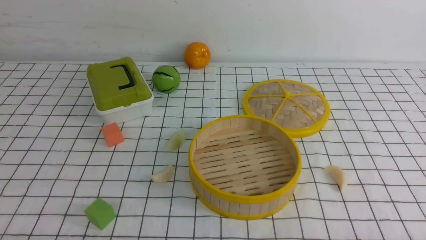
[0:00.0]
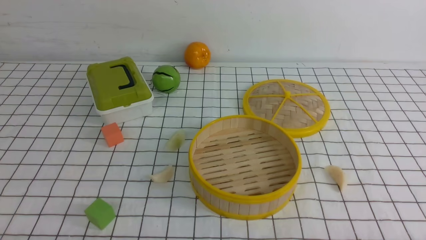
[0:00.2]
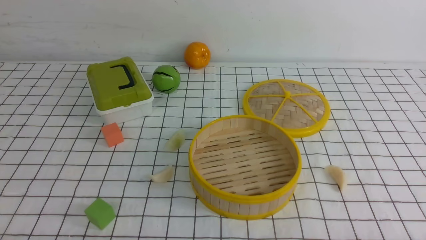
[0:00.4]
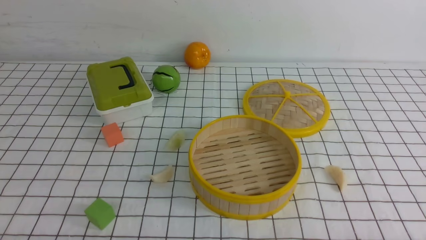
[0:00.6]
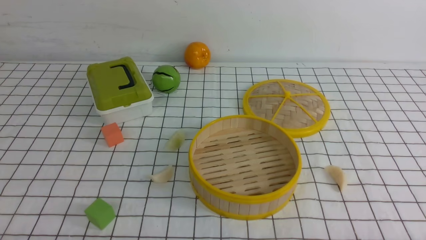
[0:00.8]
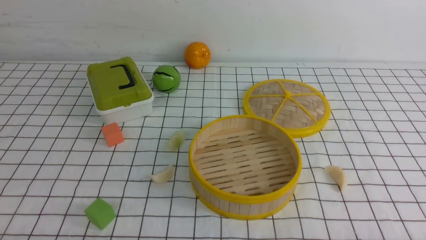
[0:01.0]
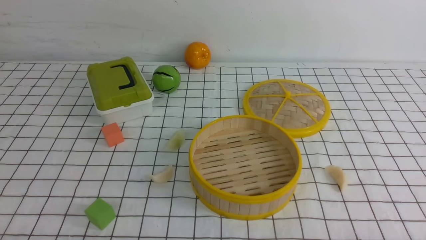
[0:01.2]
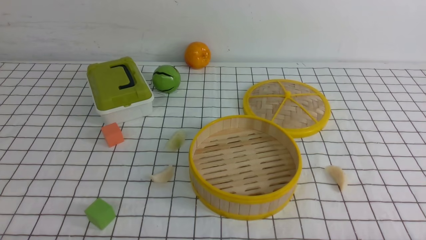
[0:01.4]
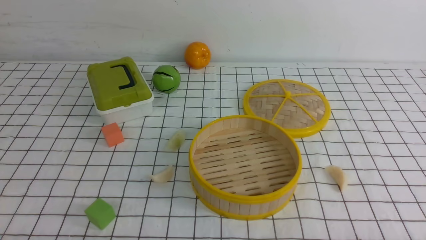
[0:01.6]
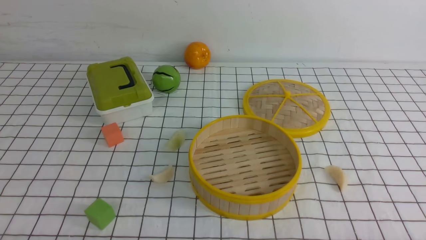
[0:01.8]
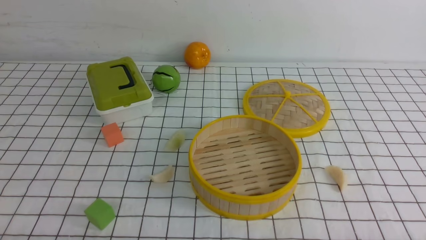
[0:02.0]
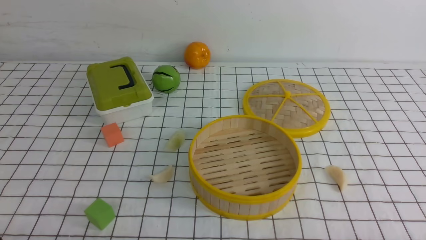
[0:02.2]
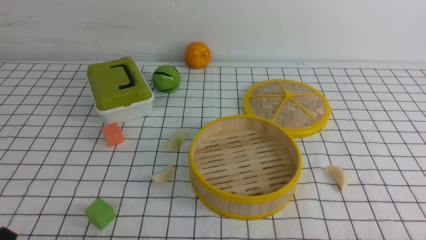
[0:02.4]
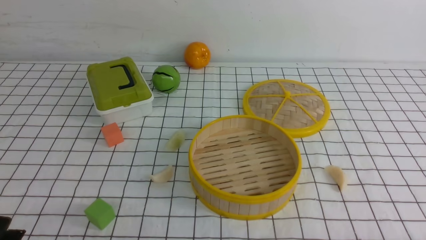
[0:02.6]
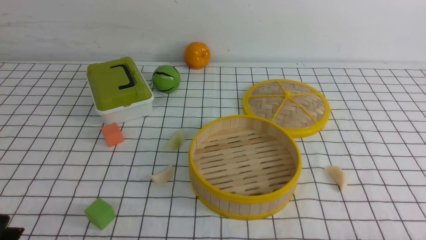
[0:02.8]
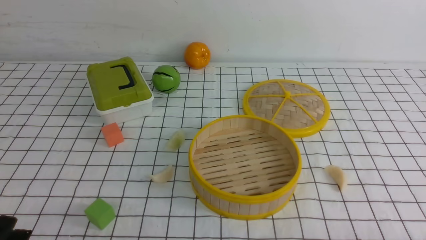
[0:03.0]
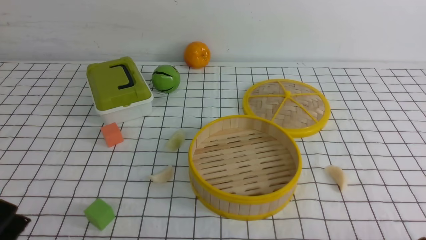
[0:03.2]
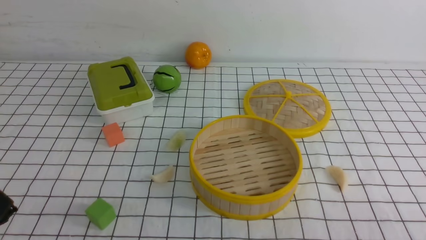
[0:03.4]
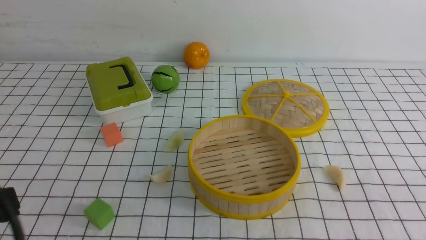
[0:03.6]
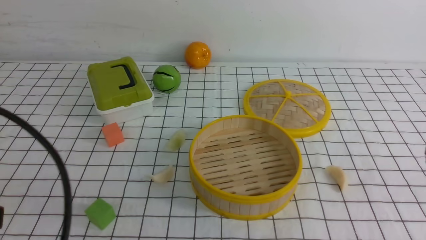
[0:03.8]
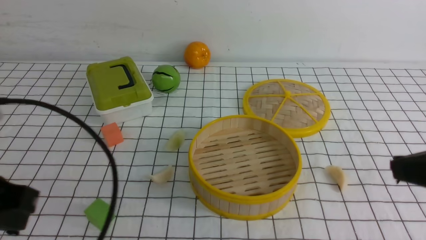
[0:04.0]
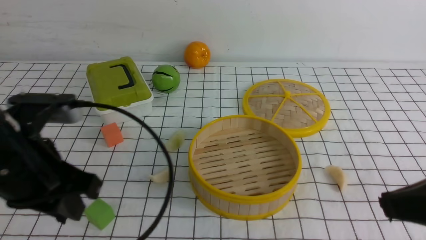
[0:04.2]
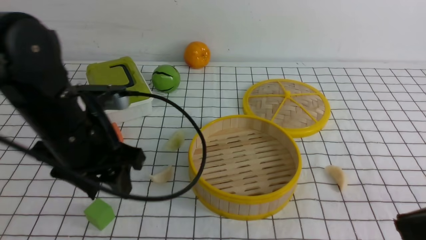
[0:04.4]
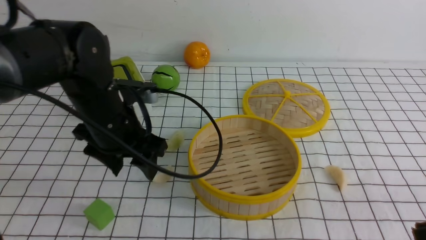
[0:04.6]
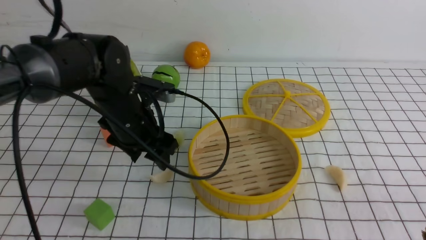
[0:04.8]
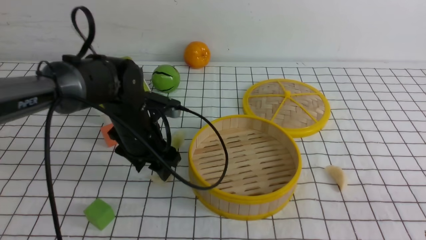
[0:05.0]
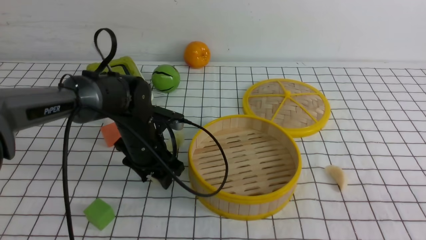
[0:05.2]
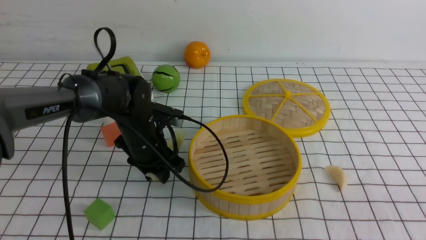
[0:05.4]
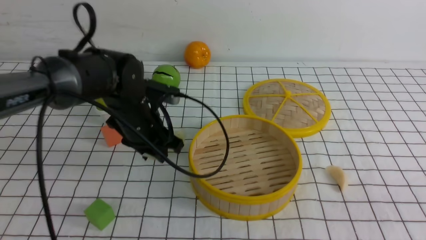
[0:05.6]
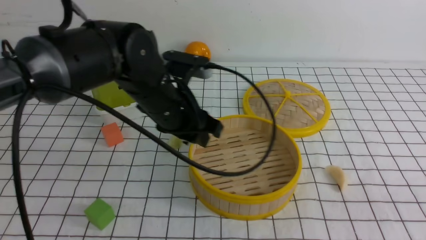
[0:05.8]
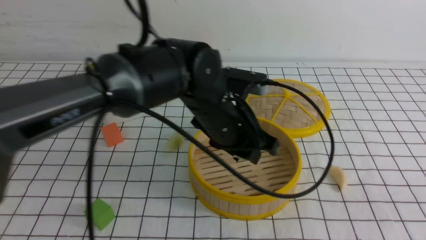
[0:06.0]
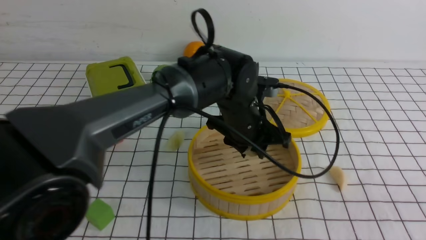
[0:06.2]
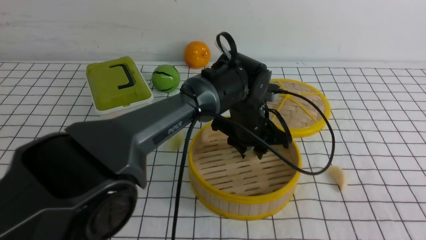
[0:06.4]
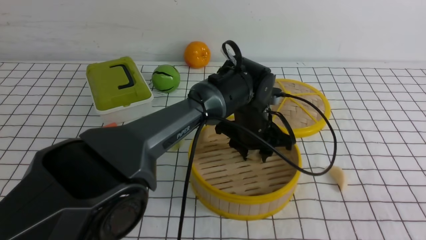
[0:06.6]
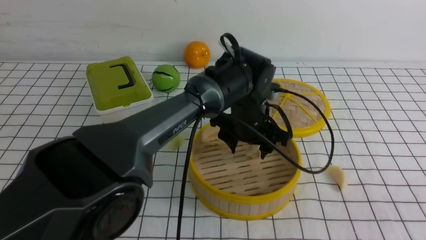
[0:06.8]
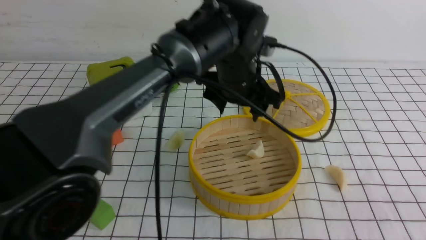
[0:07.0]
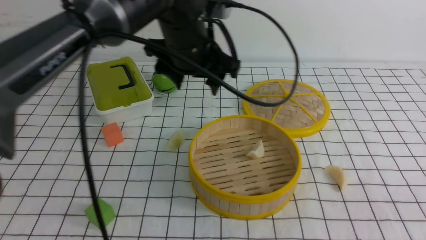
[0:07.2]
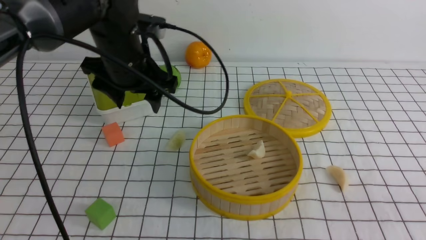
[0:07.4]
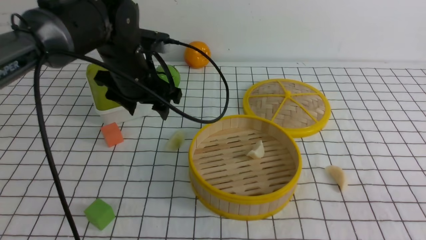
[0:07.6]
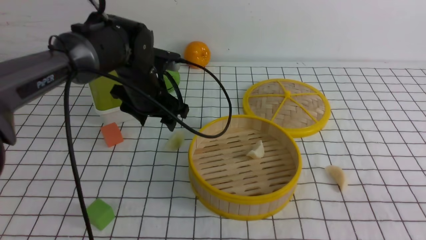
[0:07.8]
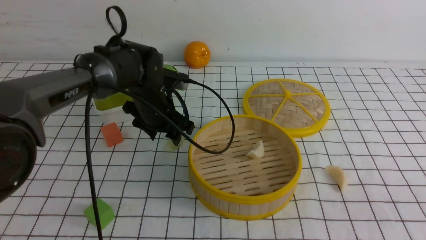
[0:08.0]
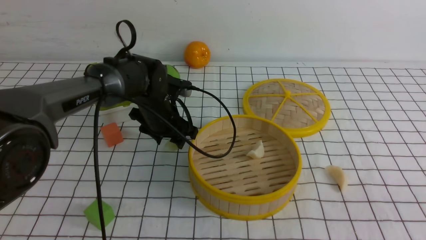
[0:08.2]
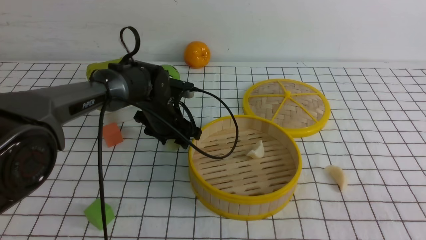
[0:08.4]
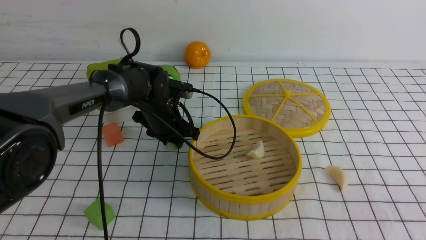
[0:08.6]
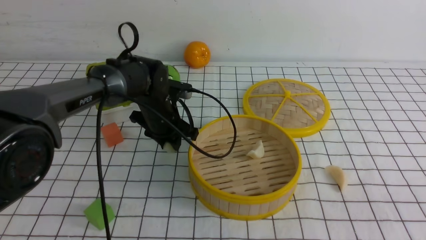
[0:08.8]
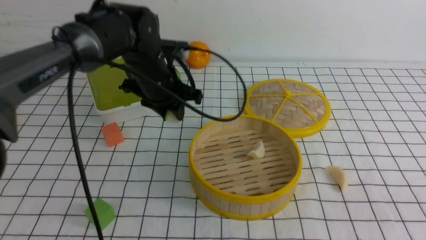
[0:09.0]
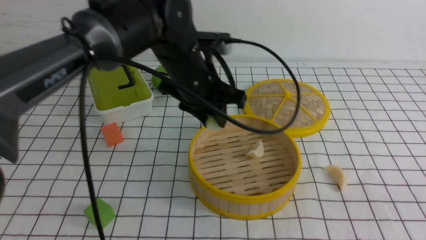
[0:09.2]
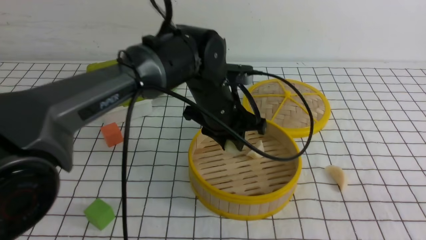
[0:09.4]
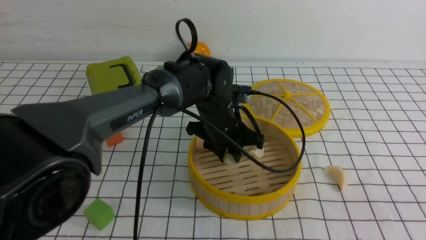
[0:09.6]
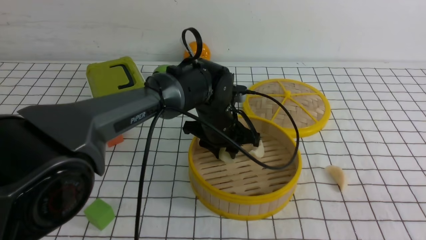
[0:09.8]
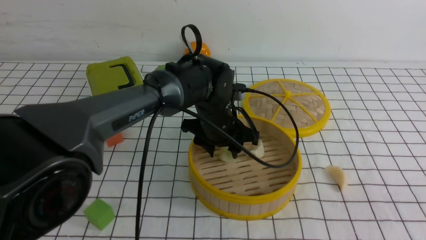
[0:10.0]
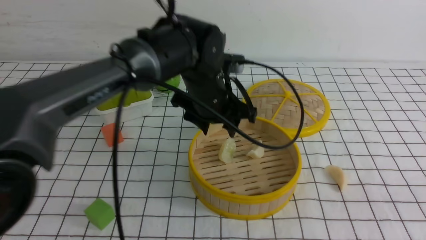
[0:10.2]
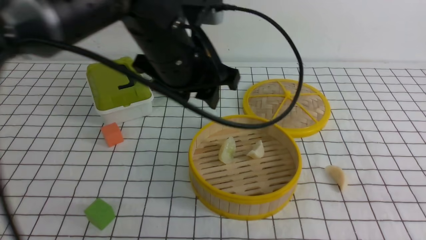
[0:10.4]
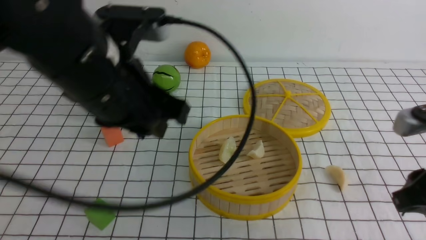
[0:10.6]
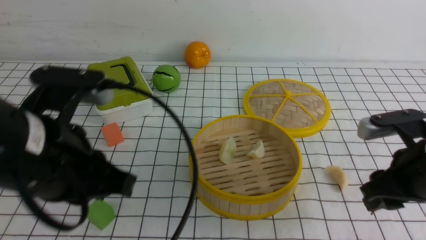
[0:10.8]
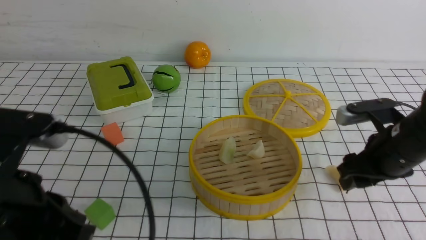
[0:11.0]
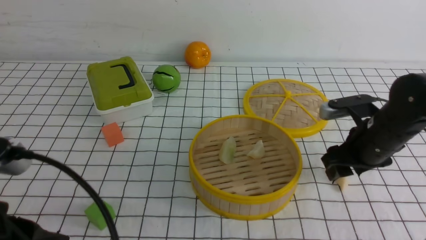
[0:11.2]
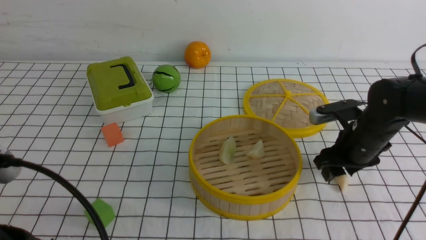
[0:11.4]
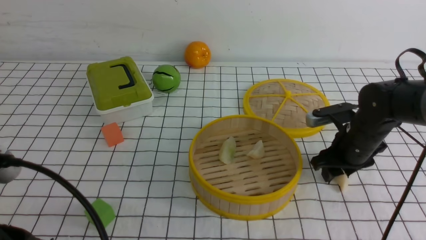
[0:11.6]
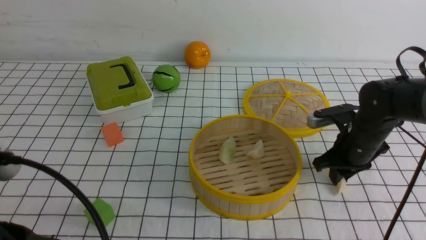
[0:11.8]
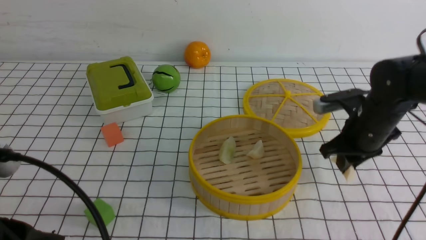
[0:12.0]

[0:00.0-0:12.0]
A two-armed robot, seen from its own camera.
Task of the whole recording: put the dumplings into the steamer on the table with the white tablecloth.
Step, 0:00.0 to 0:05.8: use the left arm to grab a dumpling.
Step, 0:06.0 to 0:07.2: use the left arm to put the dumpling into the steamer.
Step, 0:07.4 to 0:08.8: use the left arm to grab a dumpling.
Step, 0:09.0 to 0:10.0: use the left arm to put the dumpling into the steamer.
0:00.0 to 0:01.6: Both grippers stay put.
0:03.0 to 0:04.4: The right gripper is displaced upward by approximately 15 cm, and closes its fingers; the left gripper heads forward and to the right, covering some 25 cm, and closes, then opens again.
0:04.4 to 0:06.0: The left gripper is displaced to the right and forward by approximately 20 cm.
0:06.0 to 0:07.6: The left gripper shifts about 15 cm to the left and forward, and opens its fingers.
0:07.6 to 0:09.0: The left gripper is displaced to the right by some 5 cm, goes downward and returns, about 10 cm each way, and closes its fingers.
0:09.0 to 0:10.4: The left gripper travels backward and upward by about 15 cm; the right gripper travels forward by some 10 cm.
0:10.4 to 0:12.0: The left gripper travels backward and to the left by roughly 25 cm, and closes its fingers; the right gripper moves forward and downward, approximately 25 cm, and opens, then closes again.

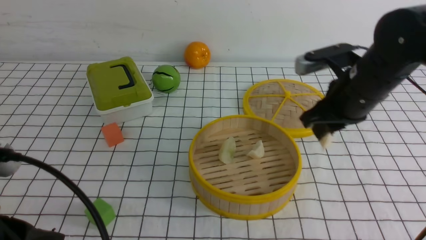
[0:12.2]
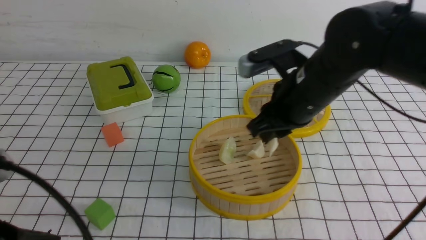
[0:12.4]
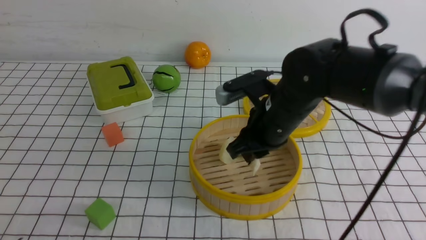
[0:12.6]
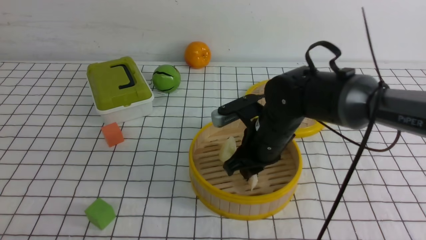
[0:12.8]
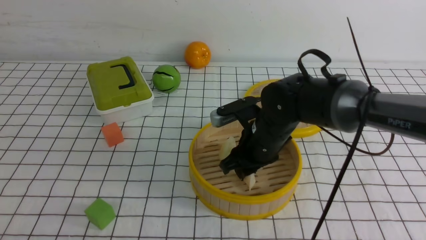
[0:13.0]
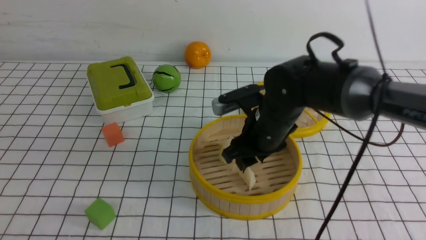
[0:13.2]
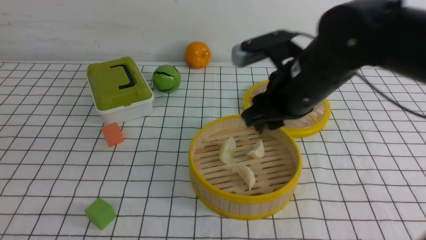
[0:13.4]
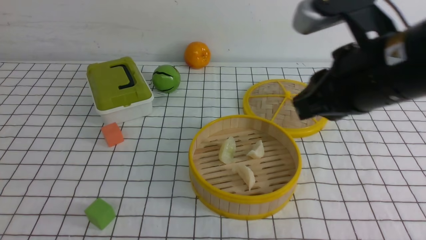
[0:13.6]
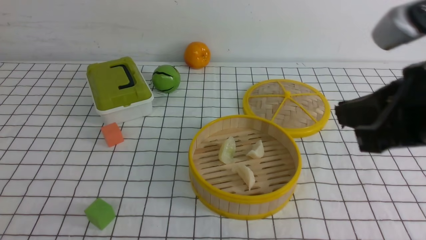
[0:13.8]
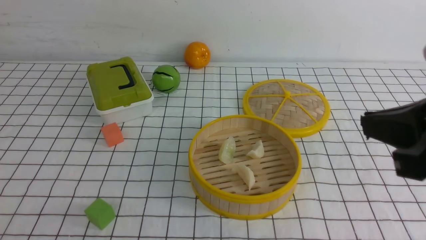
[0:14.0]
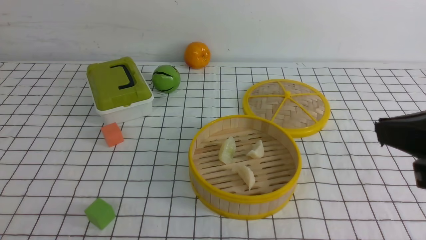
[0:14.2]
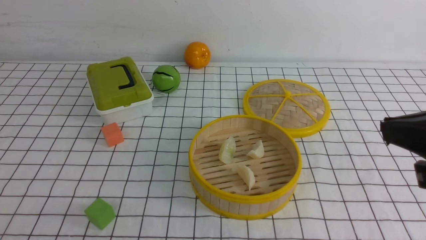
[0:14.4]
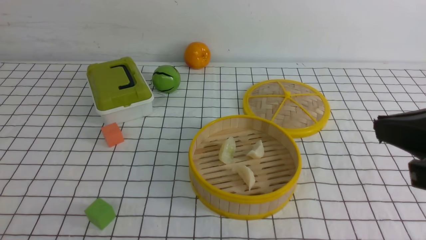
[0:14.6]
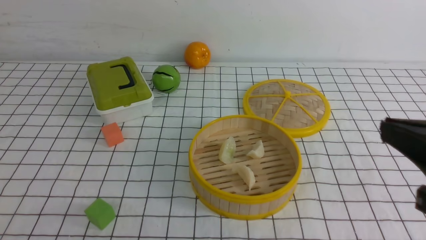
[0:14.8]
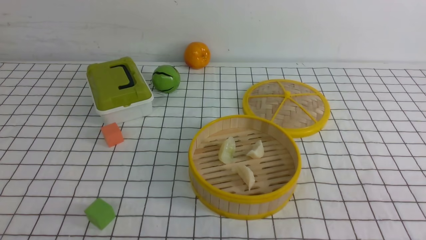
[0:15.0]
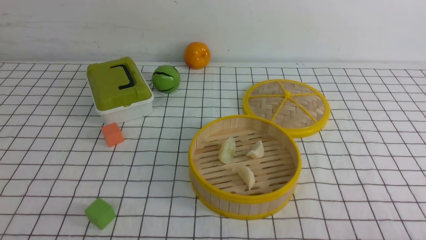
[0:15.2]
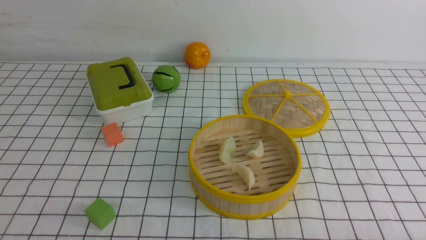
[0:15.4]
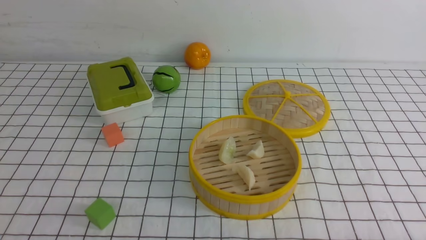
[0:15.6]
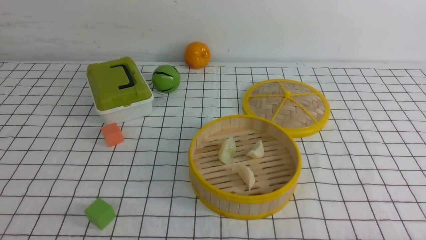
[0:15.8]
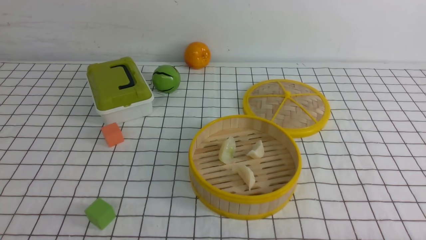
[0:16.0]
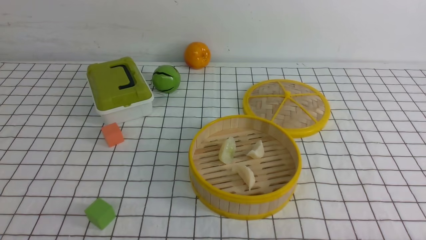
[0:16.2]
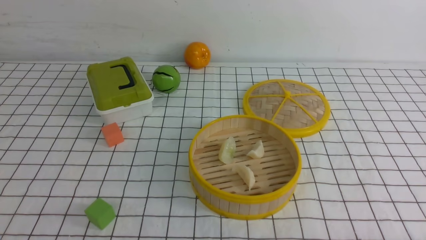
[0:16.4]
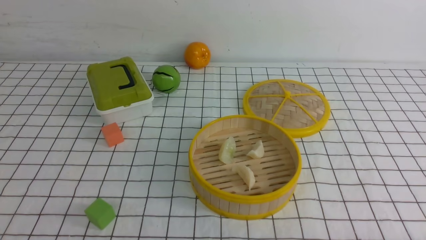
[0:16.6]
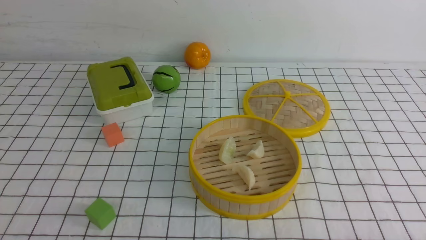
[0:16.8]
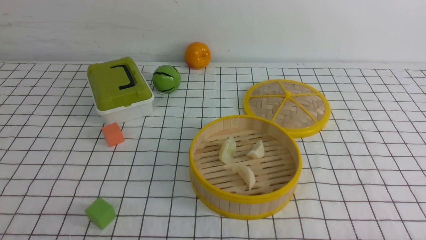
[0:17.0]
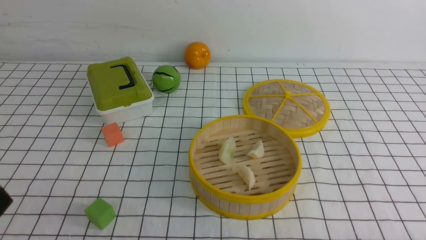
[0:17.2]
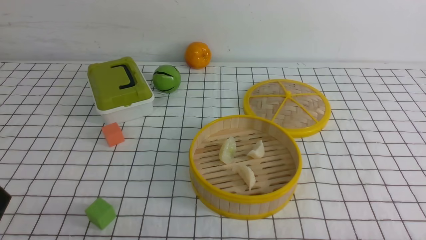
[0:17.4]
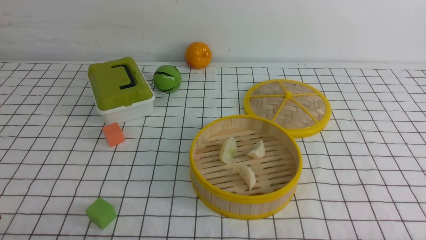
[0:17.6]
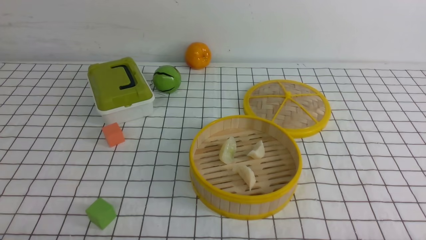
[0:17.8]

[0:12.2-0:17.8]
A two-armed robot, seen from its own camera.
Task of the whole recording: put the dumplings into the steamer on the table with the white tablecloth.
Step, 0:12.4 to 0:13.6: use the right arm to put the dumpling into the steamer.
0:12.2 to 0:13.6: The left gripper goes about 10 cm backward and to the left. The right gripper moves backward and upward, roughly 15 cm.
0:13.6 to 0:15.0: The right gripper is displaced backward, to the right and downward by some 20 cm.
